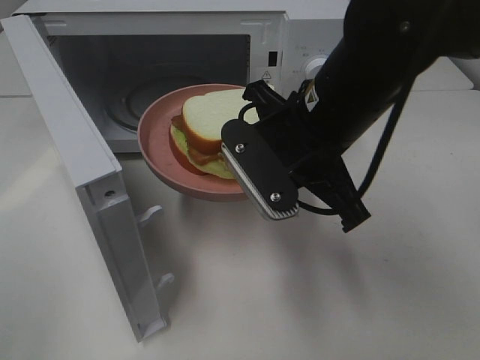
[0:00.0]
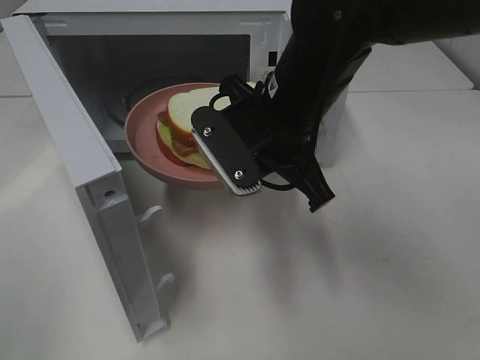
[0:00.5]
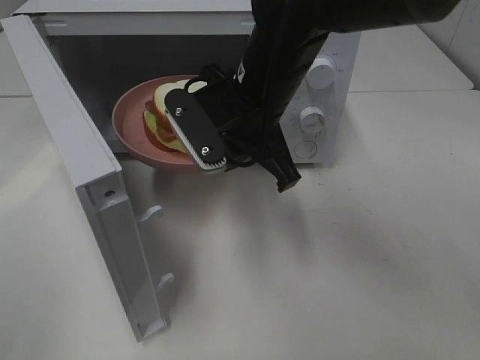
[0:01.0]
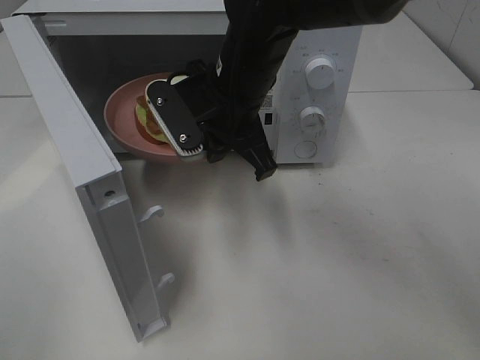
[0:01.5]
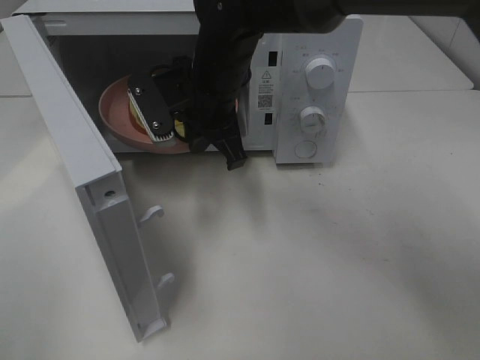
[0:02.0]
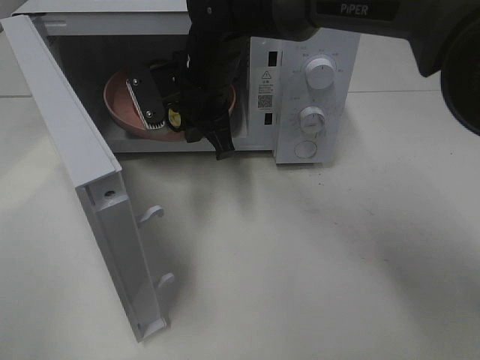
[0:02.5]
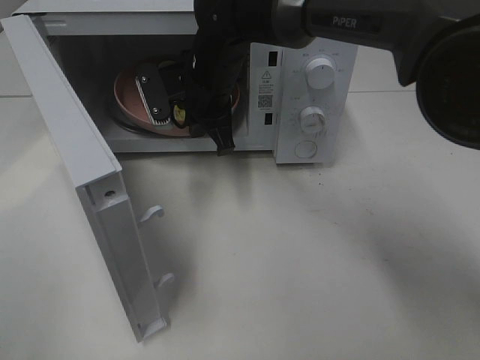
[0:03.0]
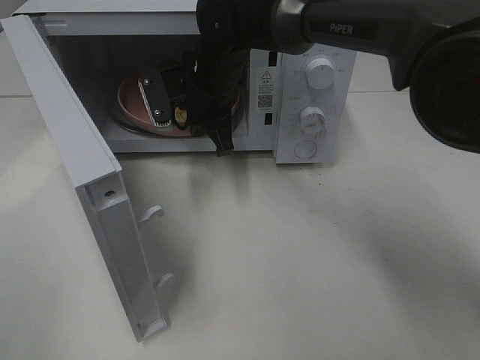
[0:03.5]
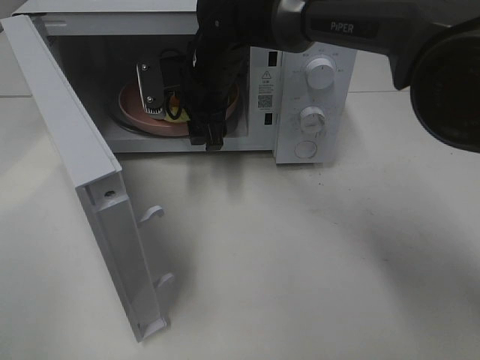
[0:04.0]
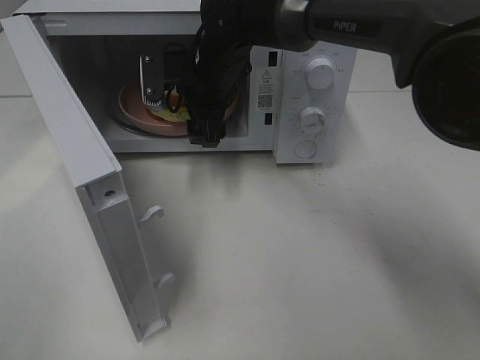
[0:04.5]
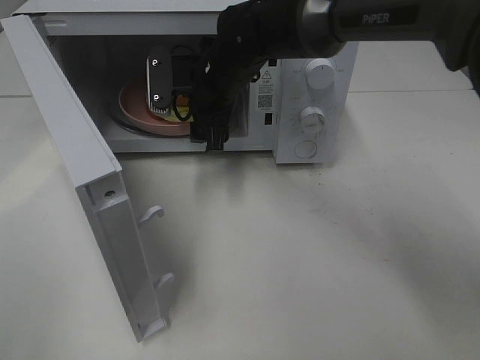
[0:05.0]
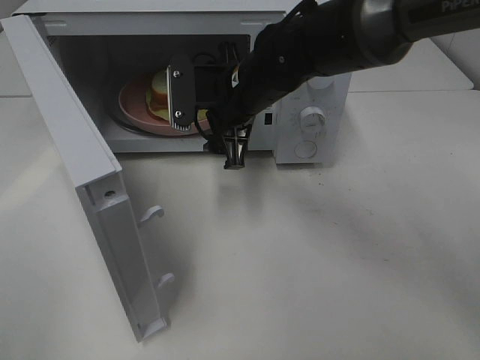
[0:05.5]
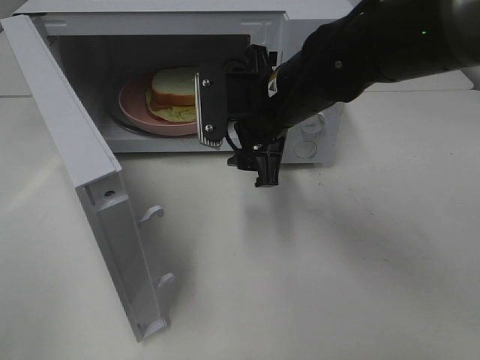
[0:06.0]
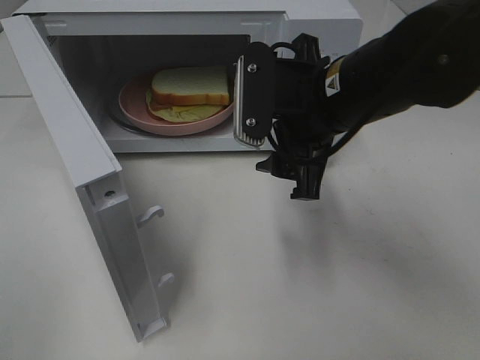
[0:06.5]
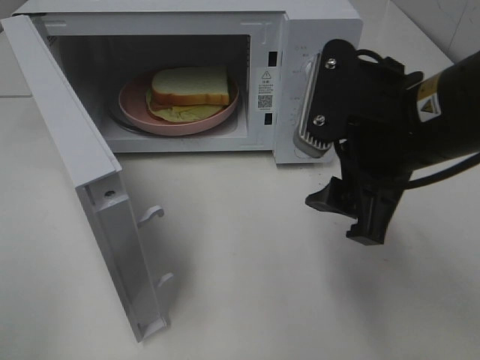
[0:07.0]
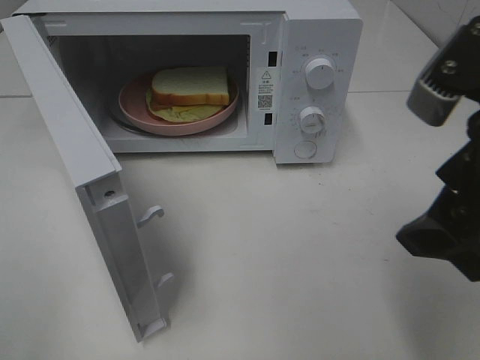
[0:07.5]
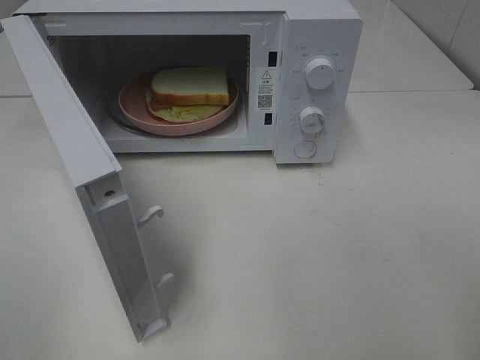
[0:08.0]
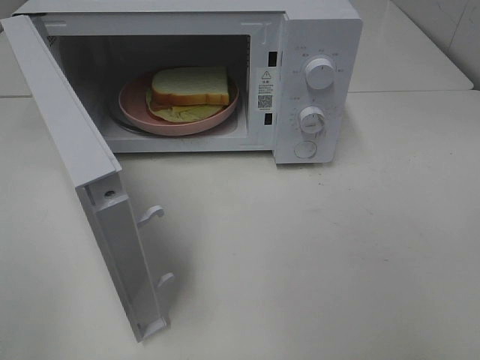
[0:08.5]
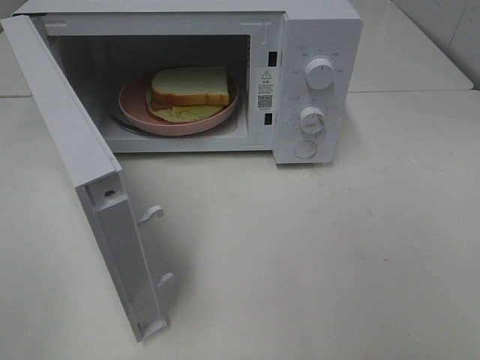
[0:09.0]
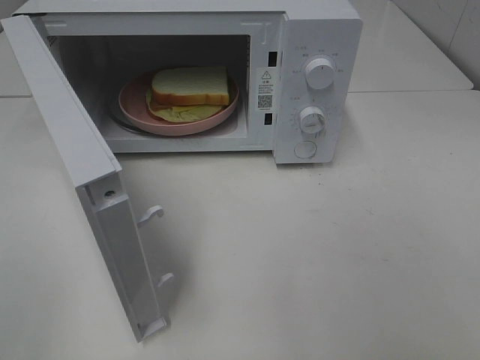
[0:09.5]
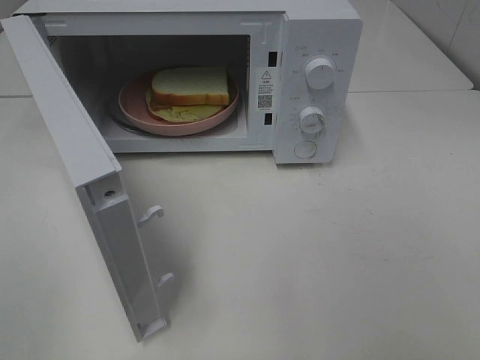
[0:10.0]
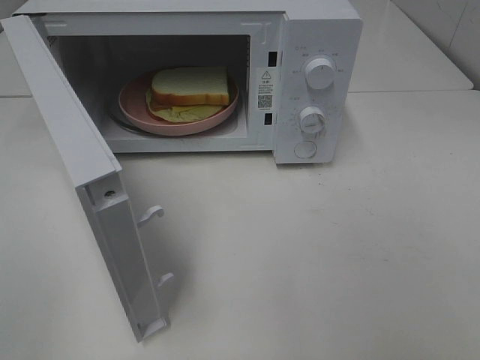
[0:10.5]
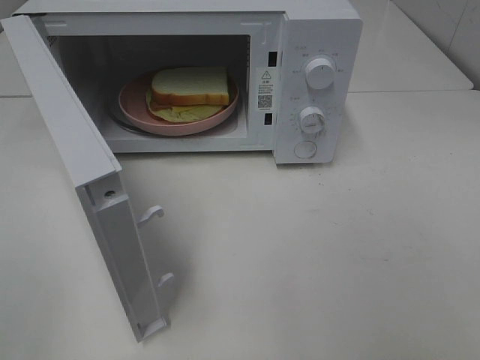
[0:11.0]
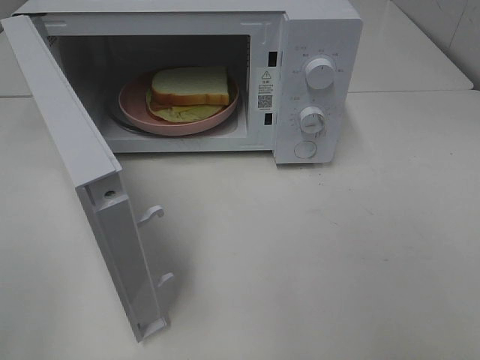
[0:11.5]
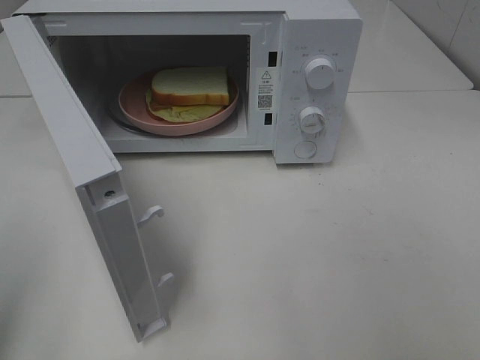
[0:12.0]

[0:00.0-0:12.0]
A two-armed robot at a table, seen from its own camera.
Task of the whole recording: Heat Sandwich.
Step, 0:00.0 to 0:04.5: Right hand: place the plate in the microwave.
0:00.0 to 0:02.0: The right gripper shifts approximately 15 cm forward and to the left.
0:02.0 to 0:04.0: The right gripper is displaced forward by roughly 5 cm, and opens up.
0:04.0 to 0:06.0: The right gripper heads backward and to the right, covering some 15 cm.
0:06.0 to 0:08.0: The right gripper is displaced backward, to the right and upward by some 30 cm.

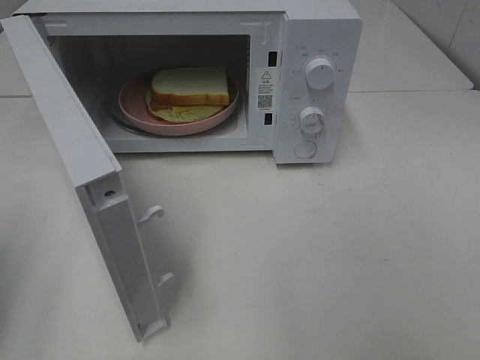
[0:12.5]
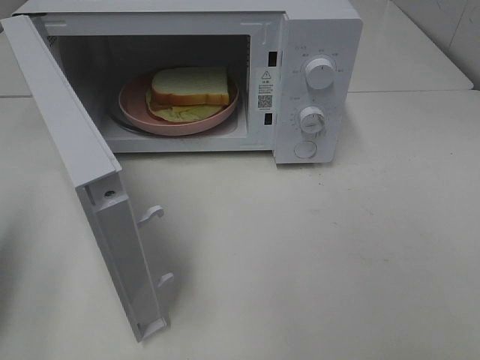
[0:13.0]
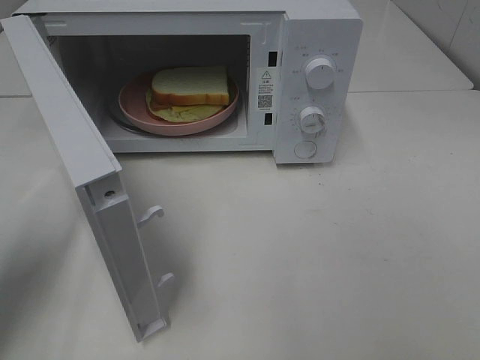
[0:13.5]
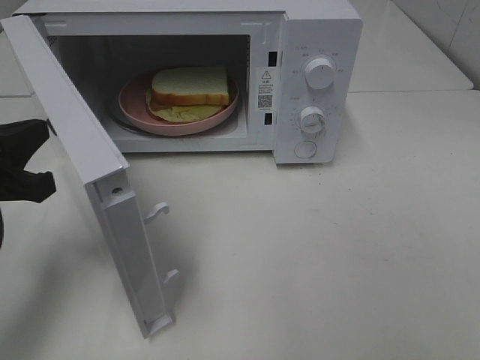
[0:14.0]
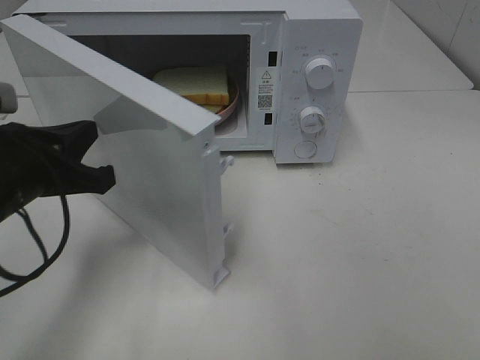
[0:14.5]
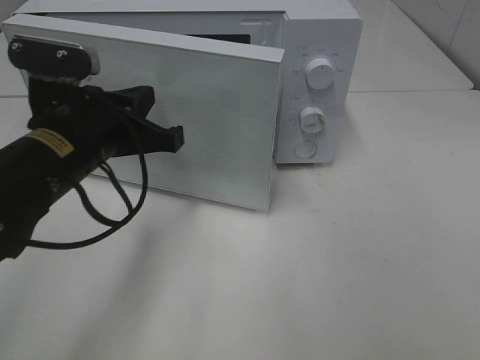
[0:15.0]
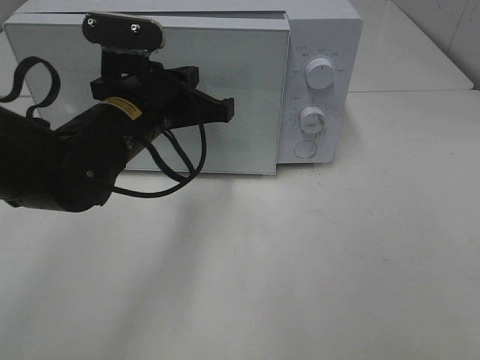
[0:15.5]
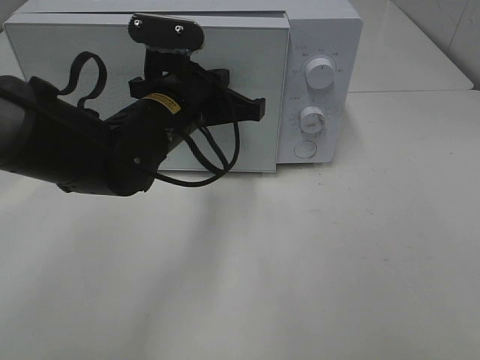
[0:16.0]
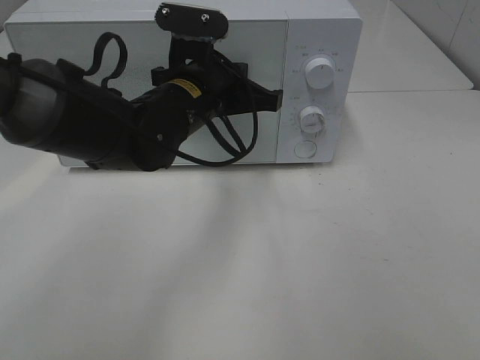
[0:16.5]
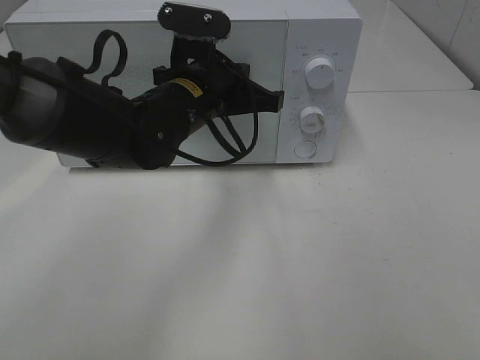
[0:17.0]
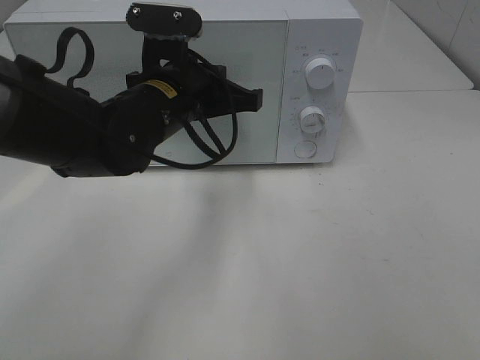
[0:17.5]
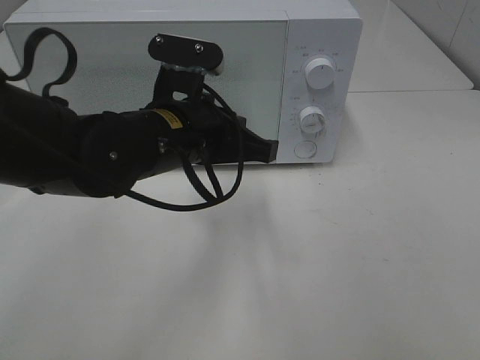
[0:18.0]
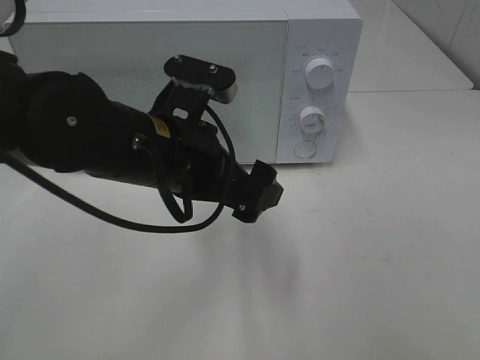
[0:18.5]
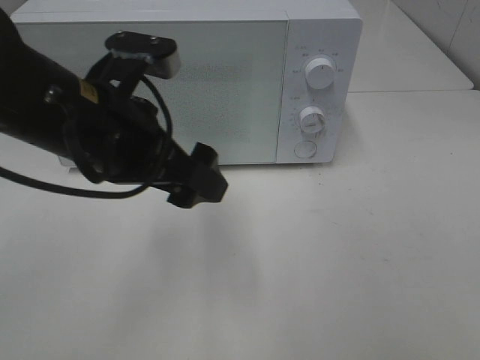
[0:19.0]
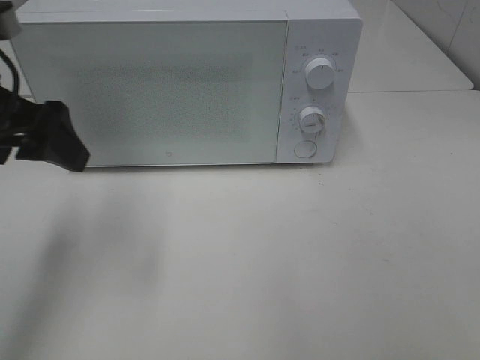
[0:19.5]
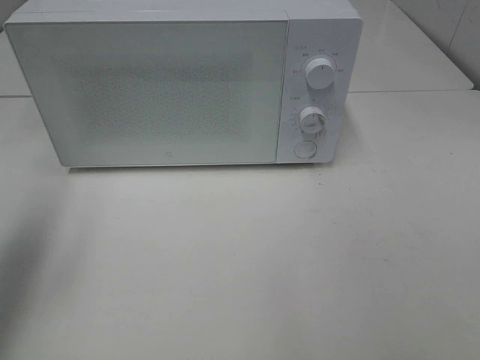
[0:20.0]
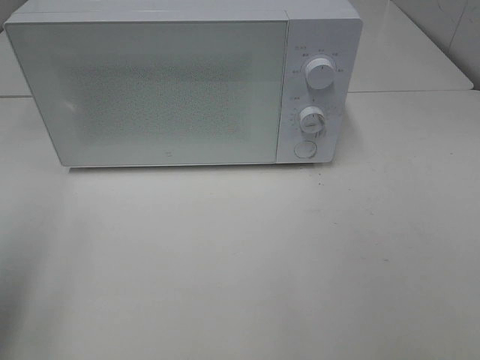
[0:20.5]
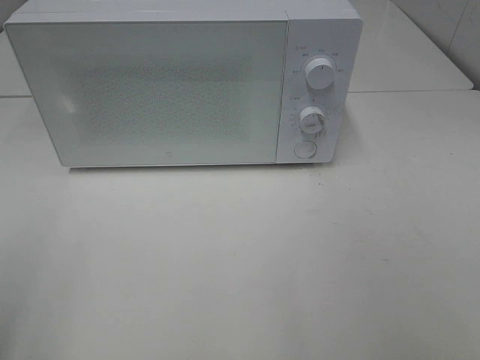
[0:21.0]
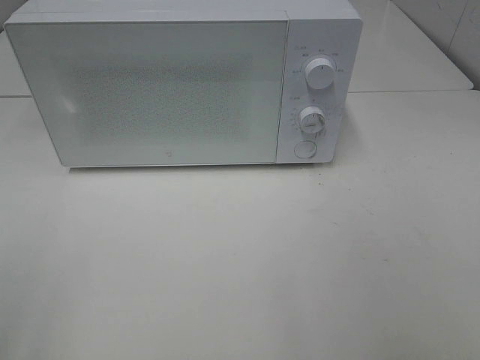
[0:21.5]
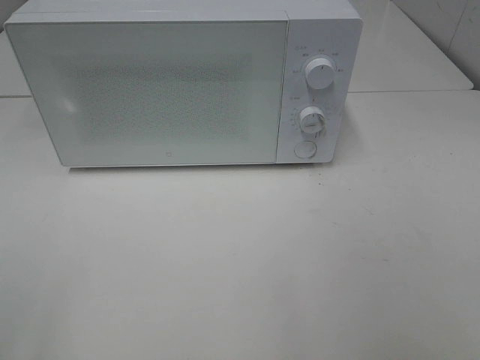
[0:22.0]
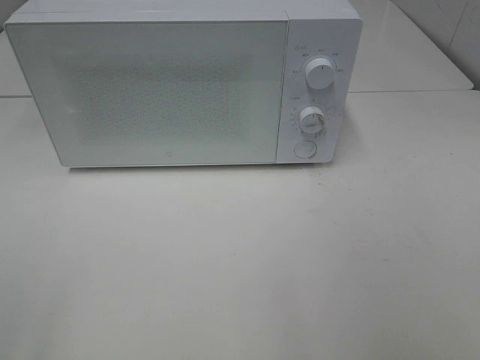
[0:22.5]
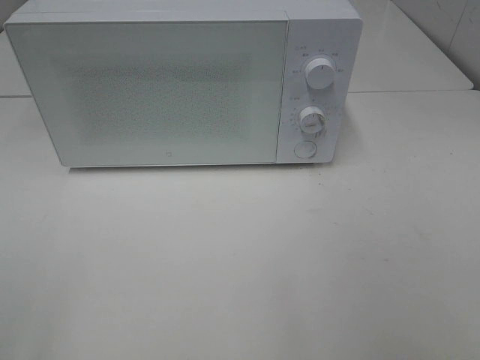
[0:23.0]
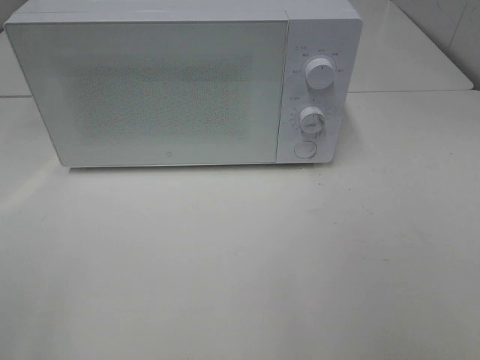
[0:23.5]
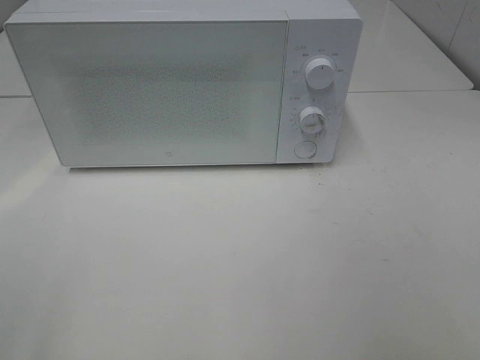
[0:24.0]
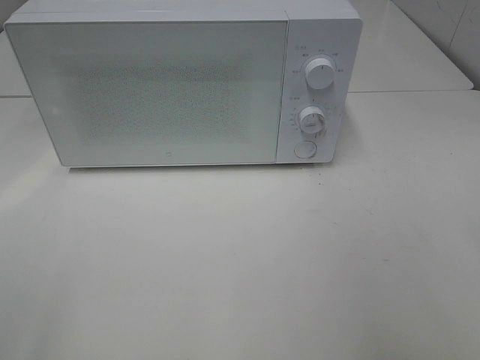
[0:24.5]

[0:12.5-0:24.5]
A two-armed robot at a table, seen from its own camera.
Task of the whole recording: Heat Sandwich.
Step, 0:12.5 to 0:17.0: Left hand: close the microwave door.
0:12.5 to 0:14.5: The left gripper is displaced to the right, forward and downward by approximately 20 cm.
0:14.5 to 0:16.5: The left gripper is displaced to the right and forward by about 20 cm.
0:16.5 to 0:18.5: The left gripper travels backward by approximately 10 cm, and opens.
0:18.5 to 0:20.5: The left gripper goes approximately 30 cm to the left and backward.
0:20.5 to 0:22.5: The left gripper travels backward by roughly 15 cm.

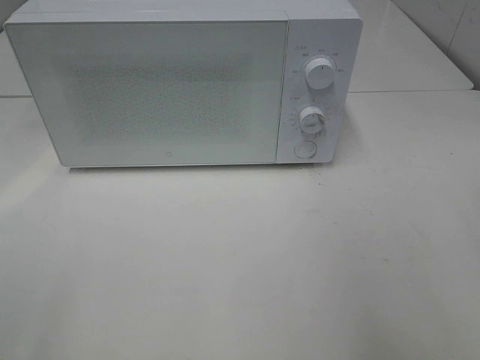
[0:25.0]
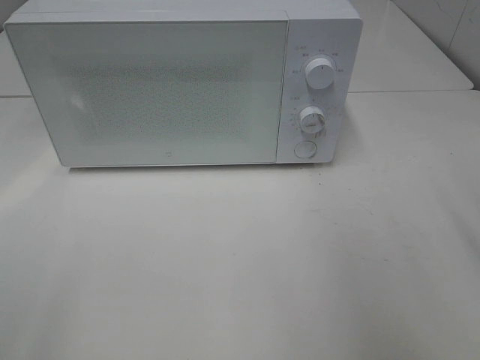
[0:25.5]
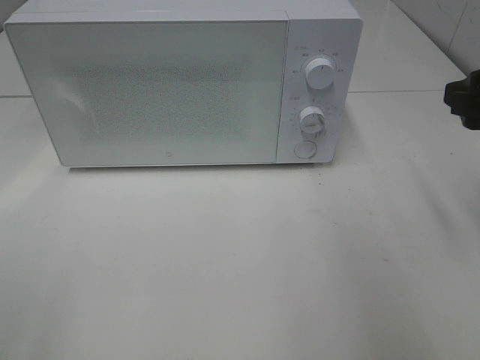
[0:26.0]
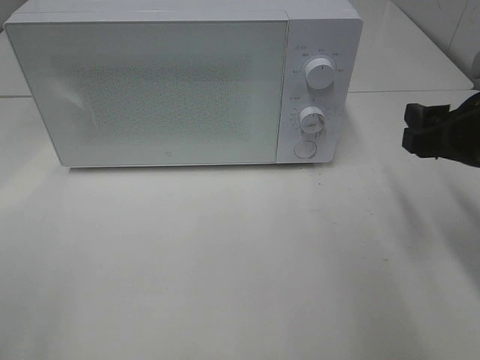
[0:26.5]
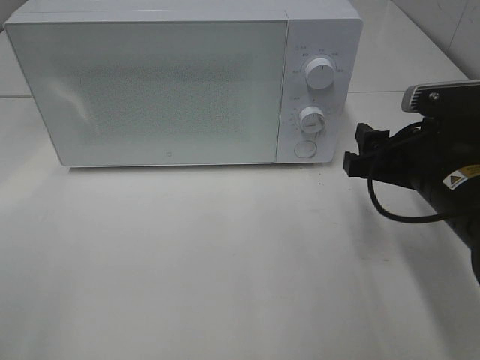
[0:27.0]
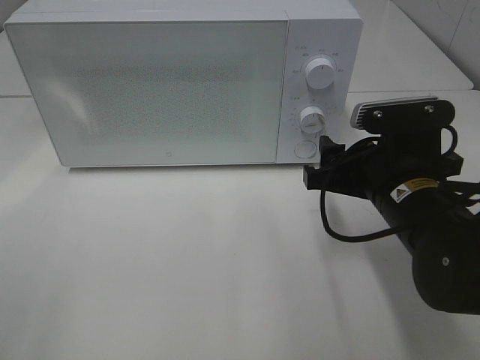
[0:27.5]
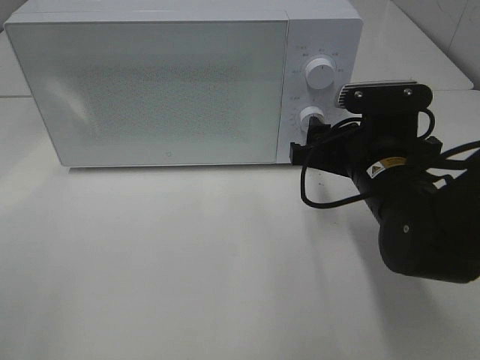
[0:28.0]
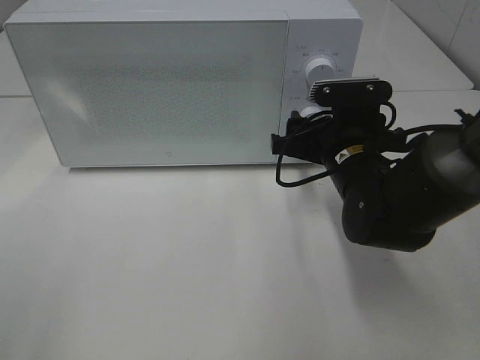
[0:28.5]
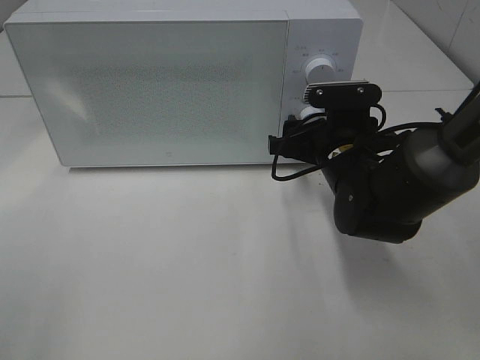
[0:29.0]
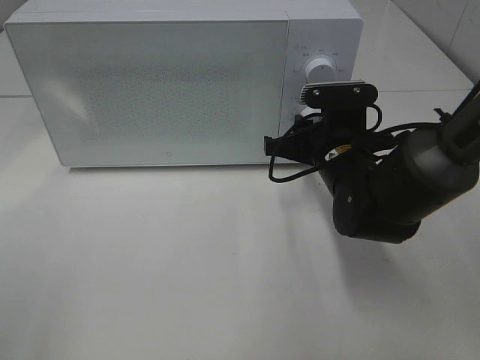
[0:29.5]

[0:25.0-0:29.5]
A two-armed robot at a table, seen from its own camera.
Task of the whole recording: Heat Sandwich.
0:25.0 to 0:27.0: The right gripper is displaced downward, forward and to the left by some 20 cm.
0:27.0 to 0:29.5: The right gripper is displaced forward, to the left and downward by some 15 cm, and closes.
